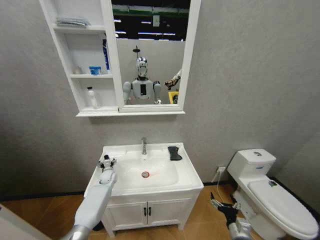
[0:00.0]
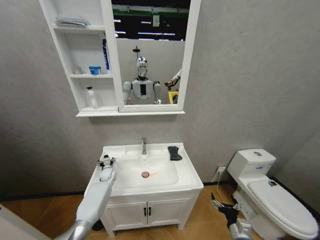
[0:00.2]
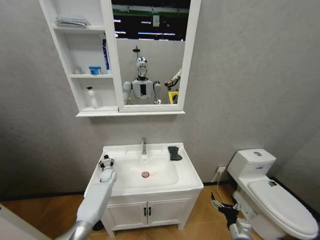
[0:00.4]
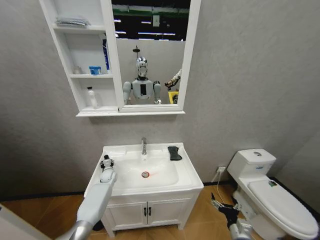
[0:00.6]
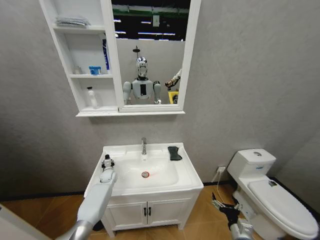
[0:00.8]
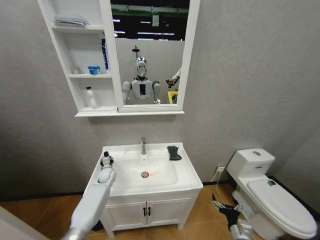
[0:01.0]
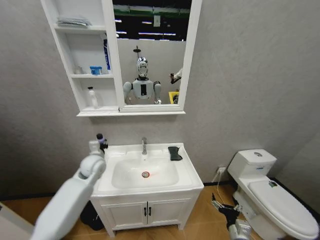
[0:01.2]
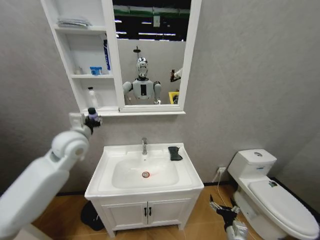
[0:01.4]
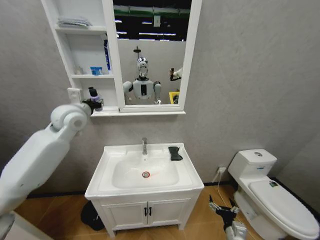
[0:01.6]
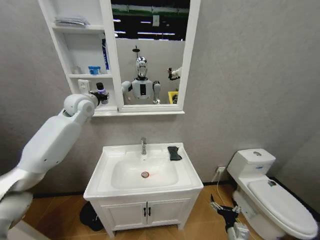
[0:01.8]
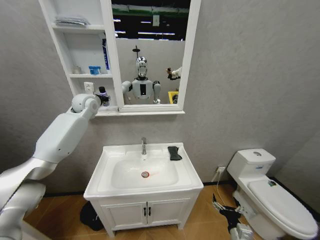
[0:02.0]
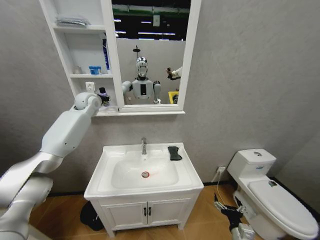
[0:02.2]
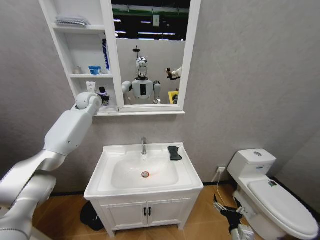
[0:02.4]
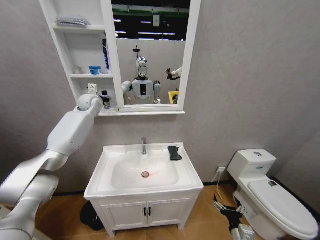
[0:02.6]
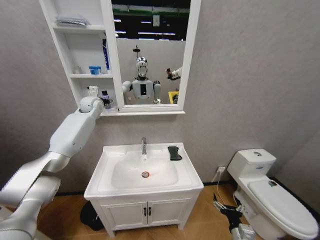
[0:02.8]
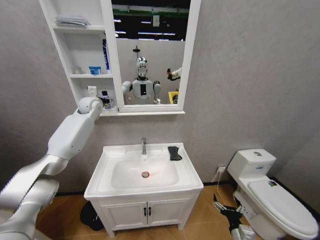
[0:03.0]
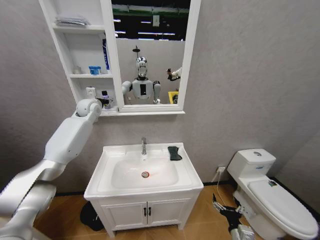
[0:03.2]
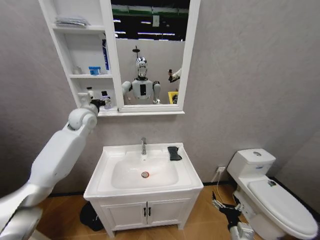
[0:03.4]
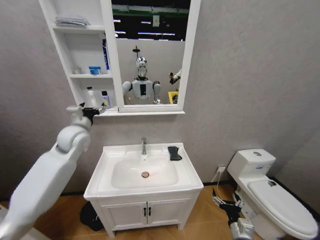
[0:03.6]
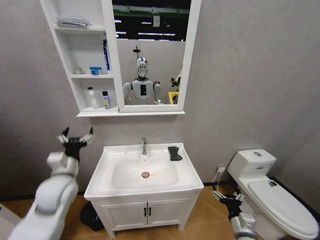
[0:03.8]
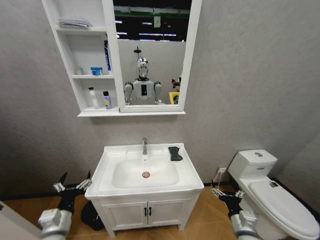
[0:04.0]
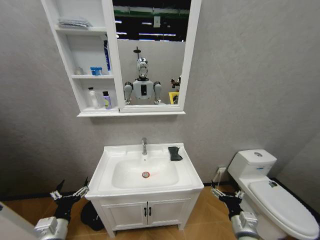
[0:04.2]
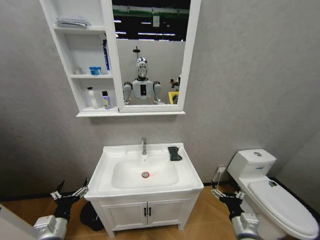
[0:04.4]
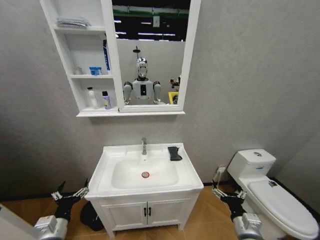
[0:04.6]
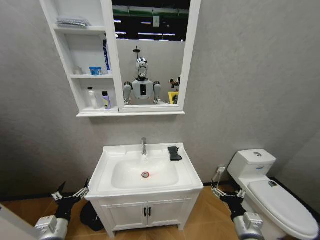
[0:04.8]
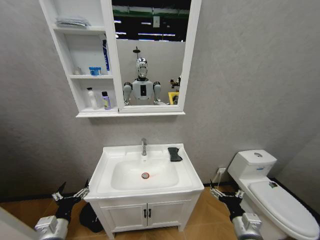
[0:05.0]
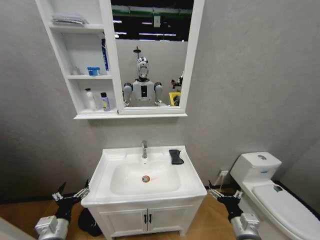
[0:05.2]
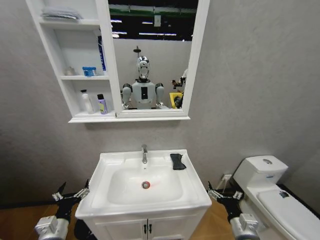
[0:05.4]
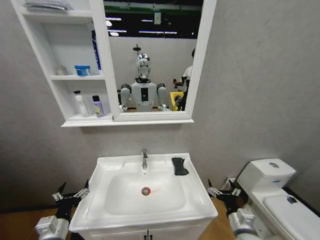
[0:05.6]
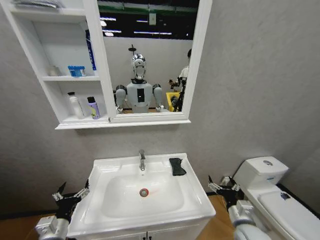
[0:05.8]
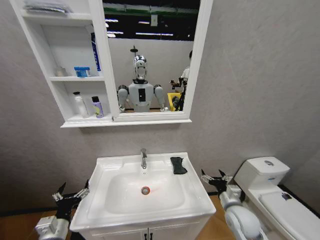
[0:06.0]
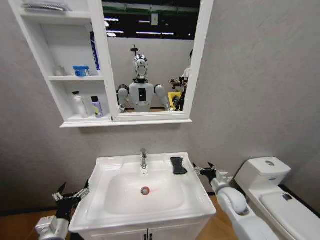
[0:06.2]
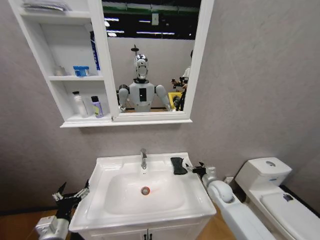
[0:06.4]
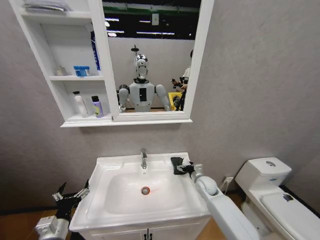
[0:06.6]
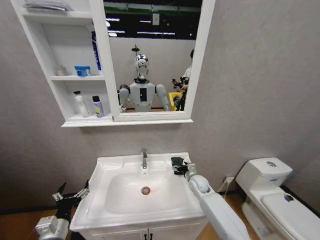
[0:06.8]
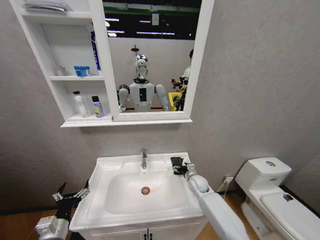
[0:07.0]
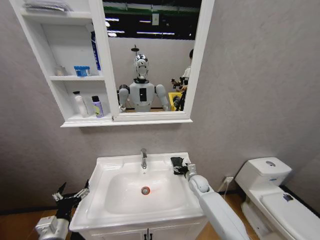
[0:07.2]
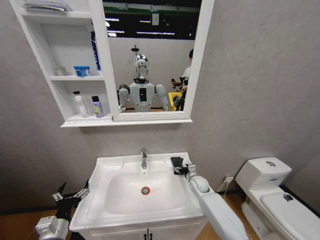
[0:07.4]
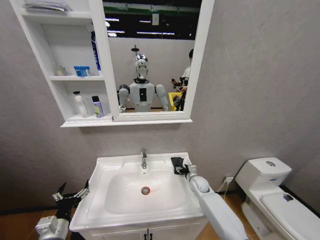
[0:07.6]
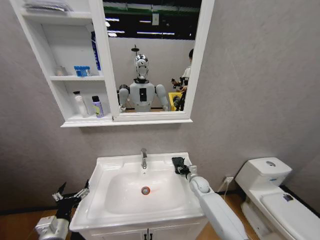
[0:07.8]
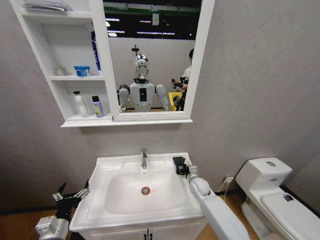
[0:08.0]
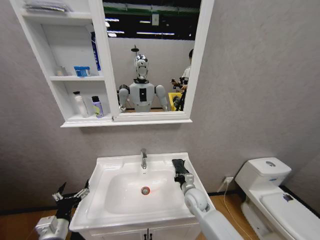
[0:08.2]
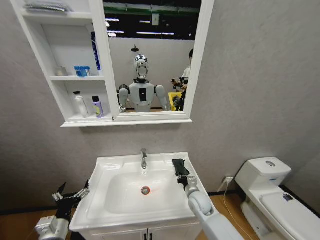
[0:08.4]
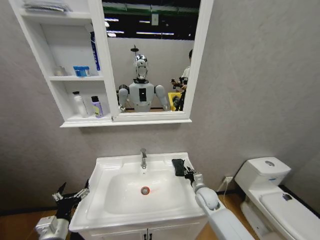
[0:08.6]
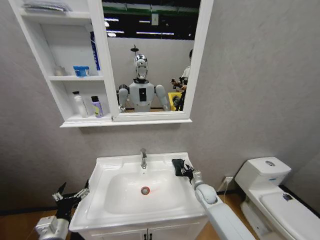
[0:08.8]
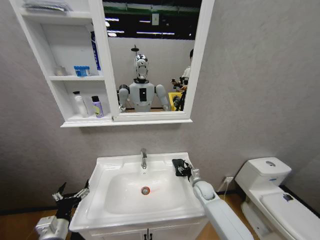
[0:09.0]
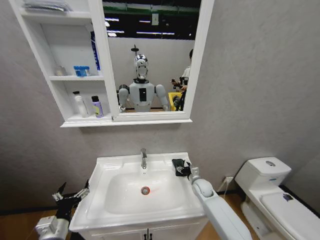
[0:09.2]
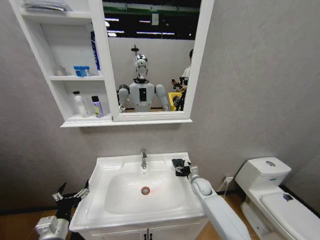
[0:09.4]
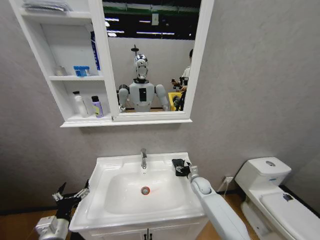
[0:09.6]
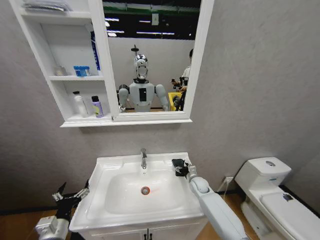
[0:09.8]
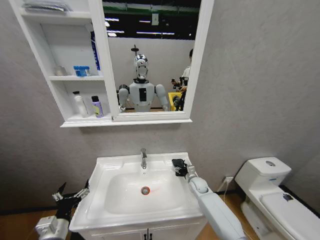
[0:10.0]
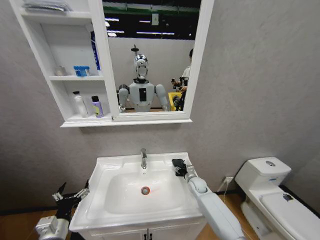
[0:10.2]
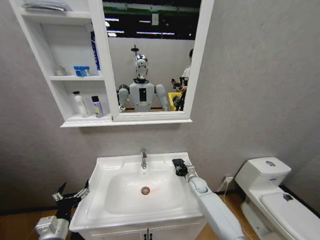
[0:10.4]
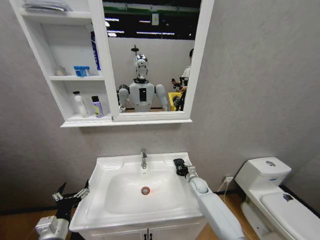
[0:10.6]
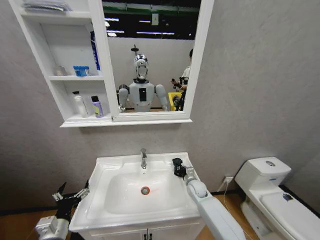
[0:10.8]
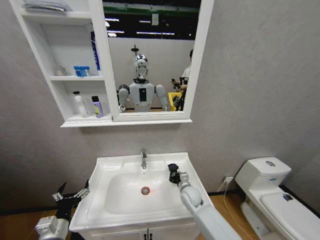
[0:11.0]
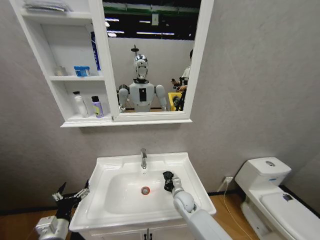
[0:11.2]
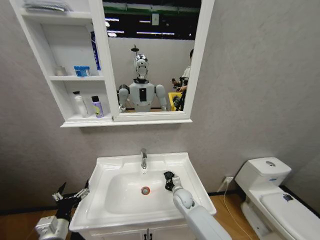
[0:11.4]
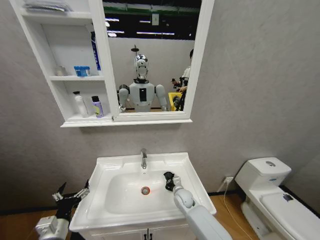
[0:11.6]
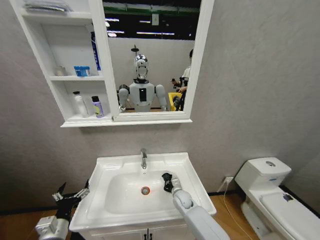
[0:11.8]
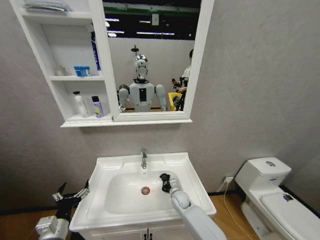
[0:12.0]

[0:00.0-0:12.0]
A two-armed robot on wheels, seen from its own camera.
Task of the whole recording: Move facial cleanser and shampoo from washbasin to cabinet, then wipe washbasin with towel.
0:00.0 to 0:01.6: The left gripper moves upward, about 40 cm, and closes its fingers.
0:01.6 to 0:03.0: The left gripper moves forward, approximately 15 cm, and opens its fingers.
0:03.0 to 0:04.4: The left gripper is displaced backward and downward by about 50 cm, while the right gripper goes about 10 cm upward.
0:04.4 to 0:06.0: The right gripper moves forward, some 10 cm.
0:06.0 to 0:07.6: The right gripper moves forward, about 20 cm.
0:07.6 to 0:09.0: The right gripper moves some 10 cm backward and comes back, and closes and opens again.
0:09.0 to 0:10.4: The right gripper opens, then closes again.
0:10.4 to 0:12.0: The right gripper travels to the left and backward by roughly 15 cm, and closes up.

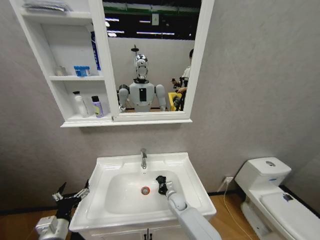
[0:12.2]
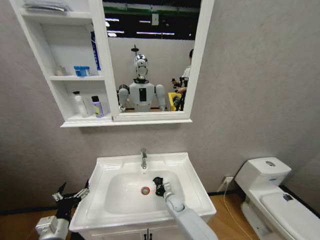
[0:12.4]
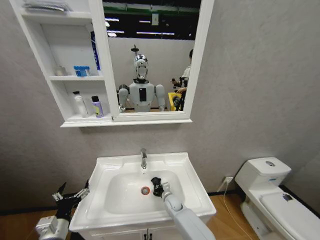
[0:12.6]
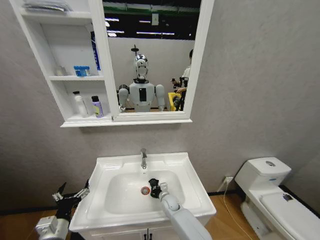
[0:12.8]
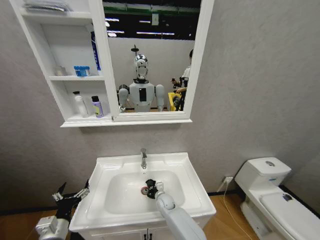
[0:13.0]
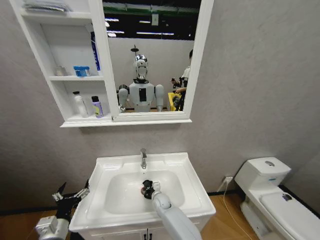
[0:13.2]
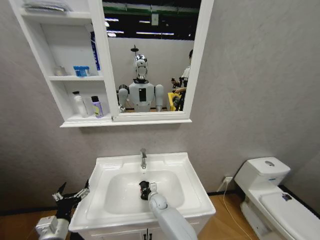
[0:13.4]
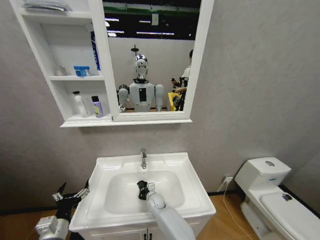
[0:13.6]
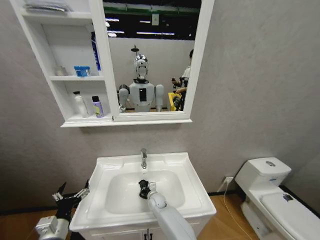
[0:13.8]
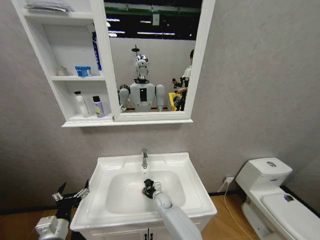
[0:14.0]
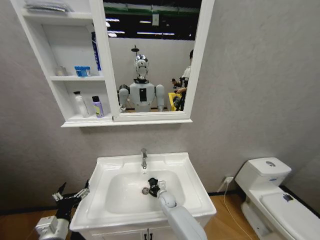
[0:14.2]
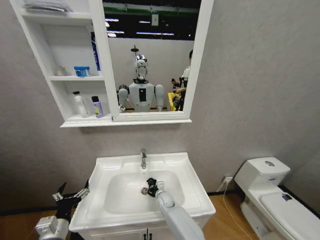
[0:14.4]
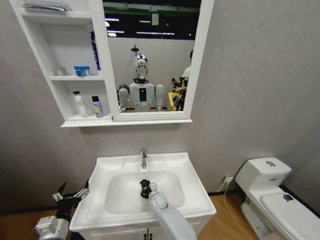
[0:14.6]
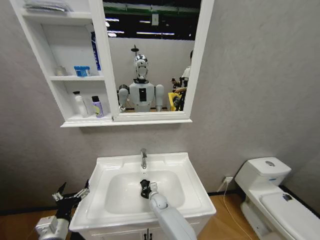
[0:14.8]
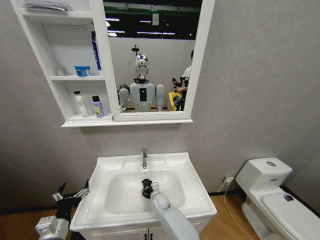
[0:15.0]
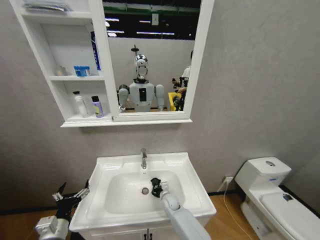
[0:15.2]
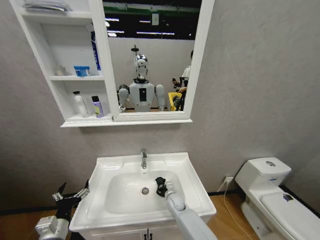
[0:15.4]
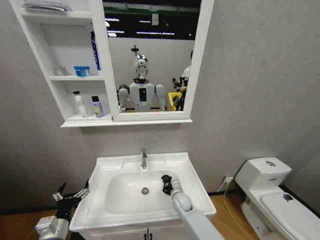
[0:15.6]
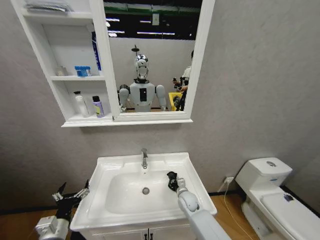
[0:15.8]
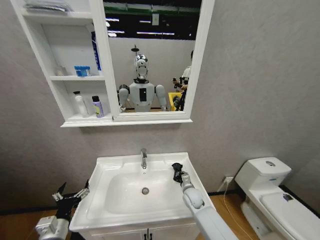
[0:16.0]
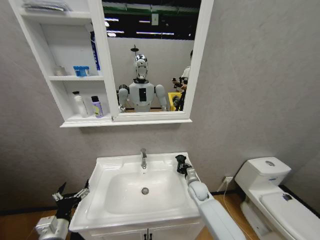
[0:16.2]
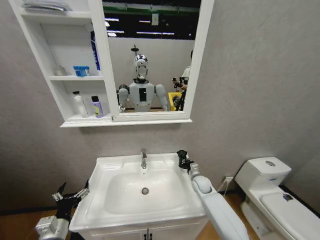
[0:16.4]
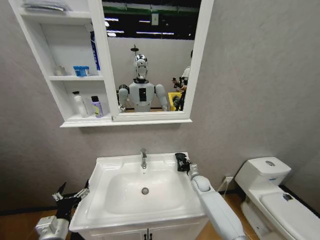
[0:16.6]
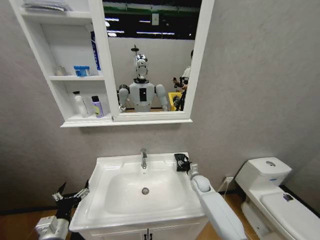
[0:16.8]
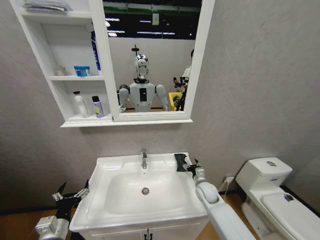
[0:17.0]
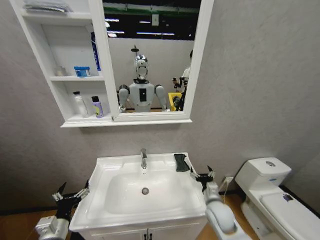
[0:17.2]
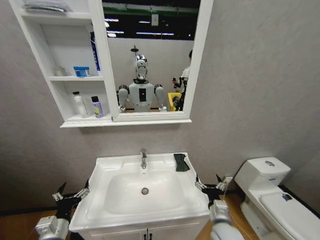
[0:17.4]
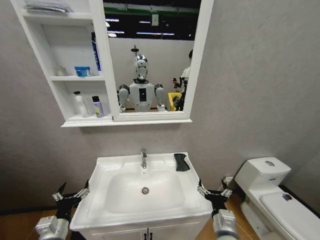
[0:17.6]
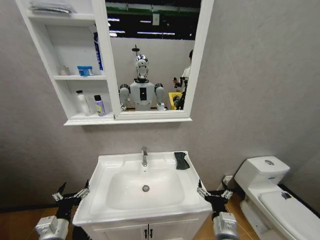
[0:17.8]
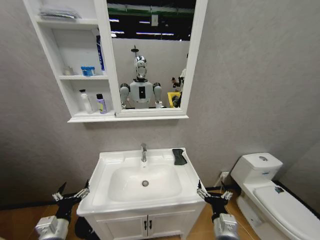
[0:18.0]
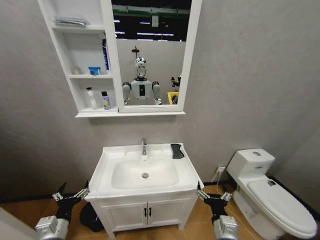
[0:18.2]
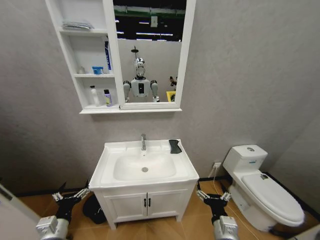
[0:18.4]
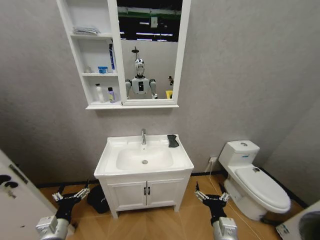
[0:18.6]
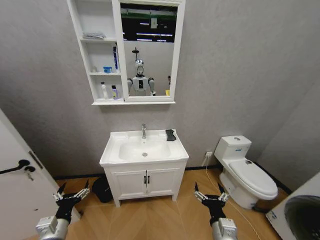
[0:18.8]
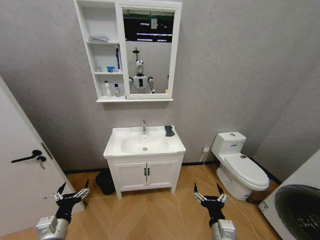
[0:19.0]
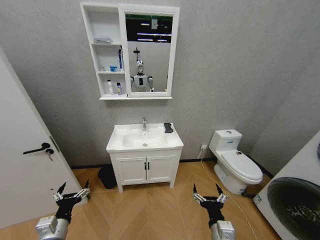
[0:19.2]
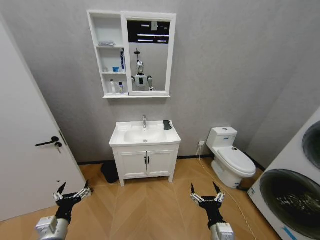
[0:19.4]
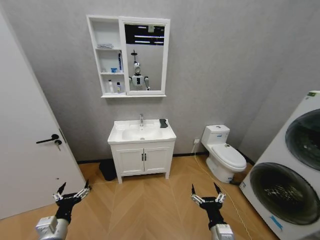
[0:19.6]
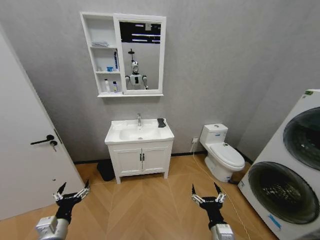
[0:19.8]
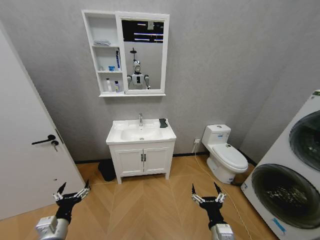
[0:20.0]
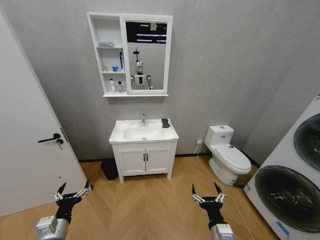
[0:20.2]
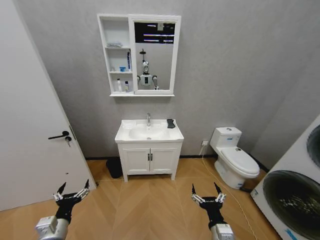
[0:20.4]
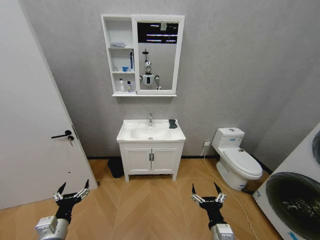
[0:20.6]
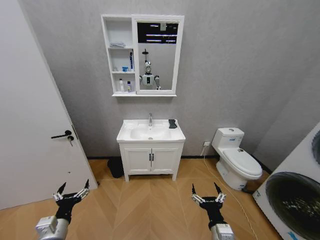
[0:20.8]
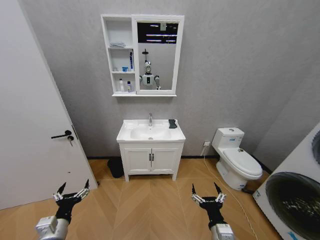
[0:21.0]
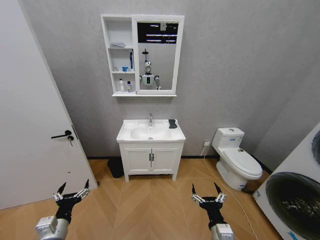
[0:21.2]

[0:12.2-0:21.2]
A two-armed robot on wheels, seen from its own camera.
Task of the whole recording: Move facial cleanser and shampoo from washbasin to cabinet, then wipe washbasin with towel.
0:12.2 to 0:13.8: The right gripper shifts approximately 10 cm to the left.
0:13.8 to 0:15.2: The right gripper moves left and right over some 5 cm, changing direction 2 times.
0:15.2 to 0:16.6: The right gripper heads to the right and upward, covering approximately 20 cm.
0:16.6 to 0:18.2: The right gripper heads backward, covering roughly 30 cm, and opens.
